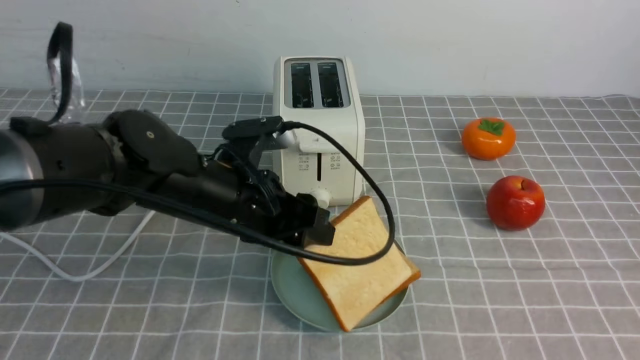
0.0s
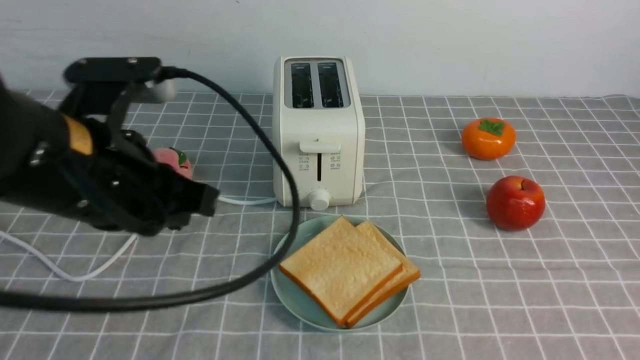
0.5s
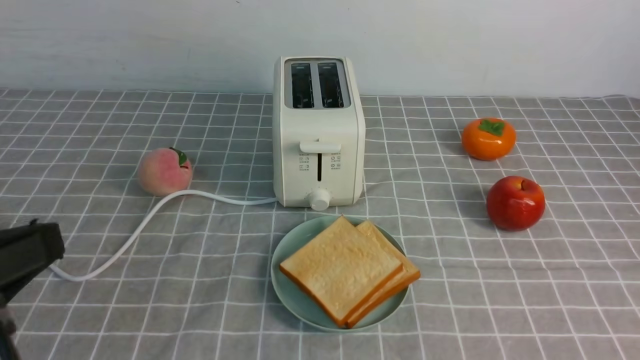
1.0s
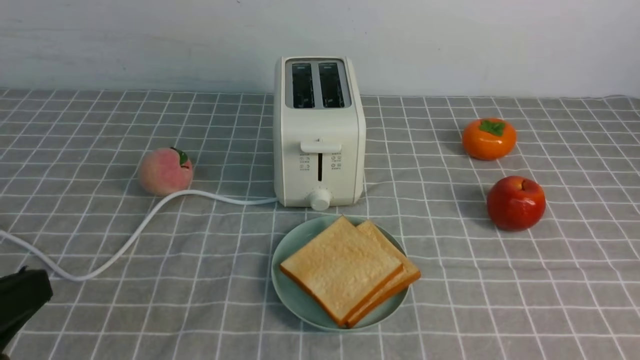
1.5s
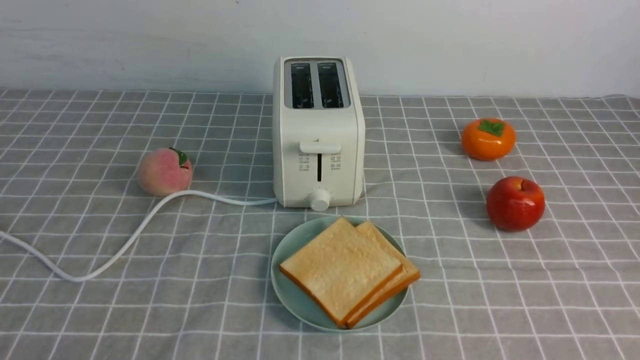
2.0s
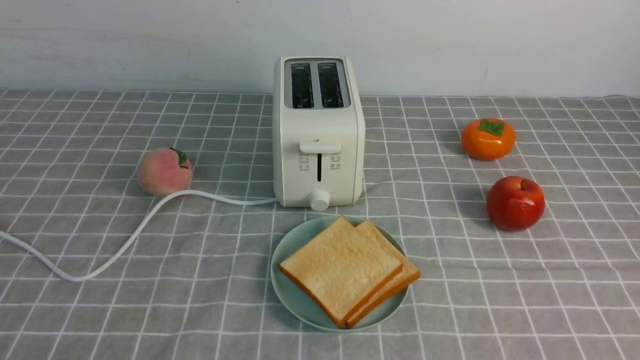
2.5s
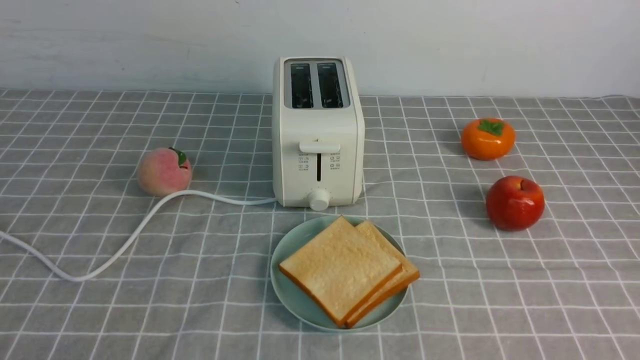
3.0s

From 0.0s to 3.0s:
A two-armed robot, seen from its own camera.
Task of the whole recording: take toasted bread from bread machine on grey coffee table place on plate.
From 0.0s to 1.5s: The left gripper goes some 30 cm backward and to the left, and closes.
From 1.5s to 3.0s: The left gripper goes approximately 15 cm downward.
